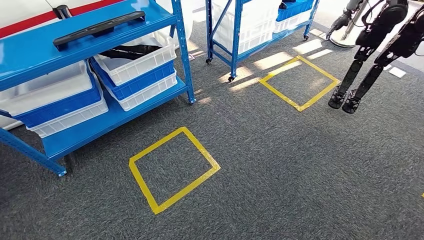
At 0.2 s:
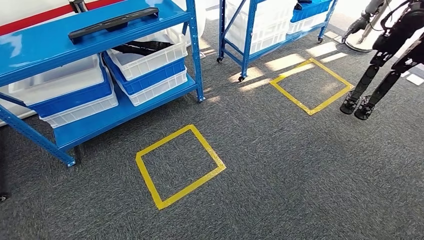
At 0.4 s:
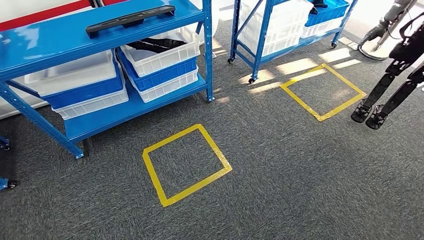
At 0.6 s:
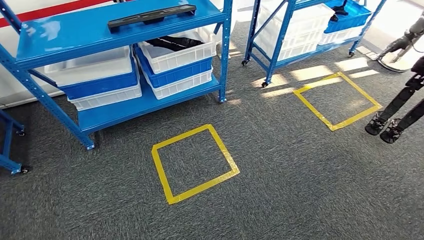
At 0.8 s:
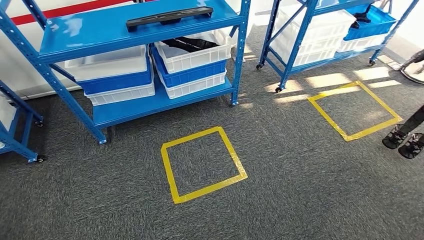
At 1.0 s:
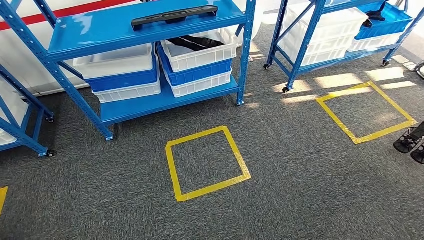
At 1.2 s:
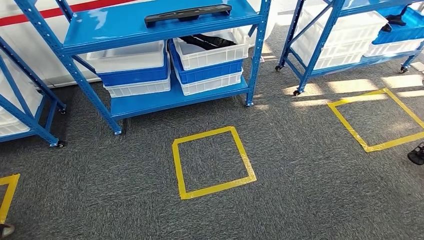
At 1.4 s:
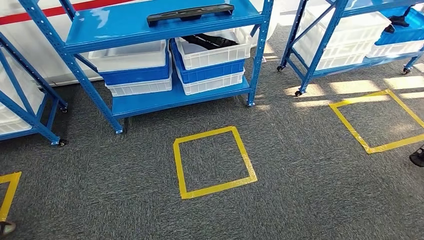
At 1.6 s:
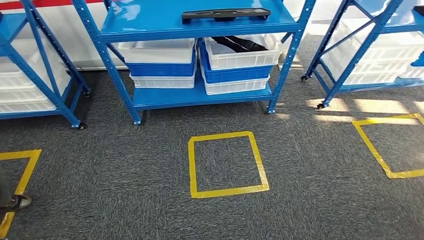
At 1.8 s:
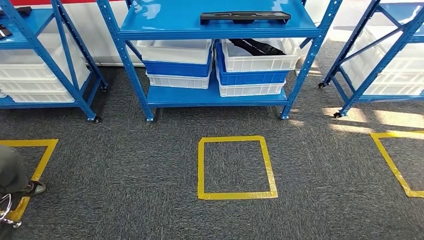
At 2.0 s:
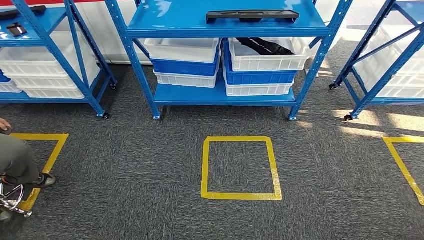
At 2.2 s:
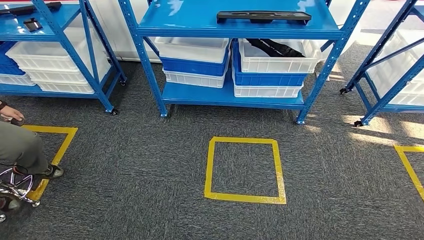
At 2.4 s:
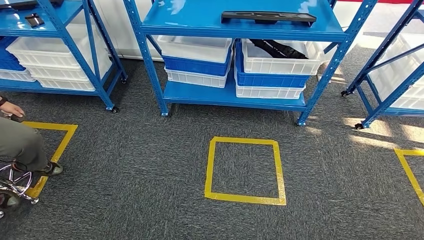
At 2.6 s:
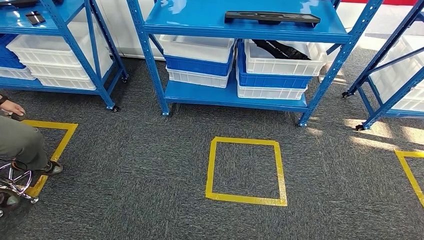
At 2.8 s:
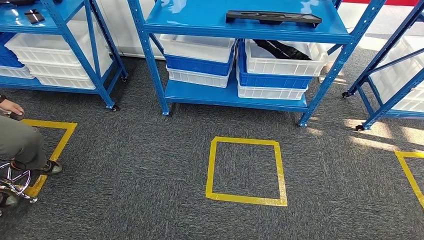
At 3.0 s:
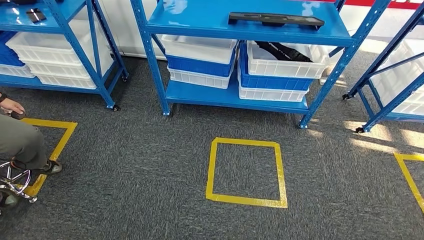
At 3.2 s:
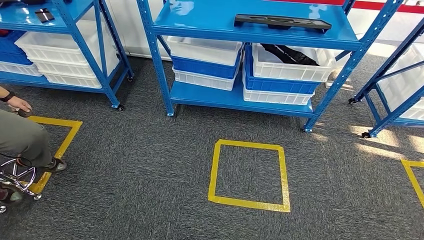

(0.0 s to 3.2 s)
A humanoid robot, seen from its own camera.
Step, 0.0 s - 3.2 s: Move to the initial position of the shelf.

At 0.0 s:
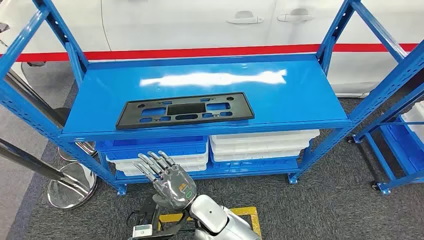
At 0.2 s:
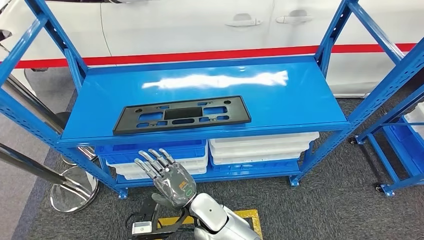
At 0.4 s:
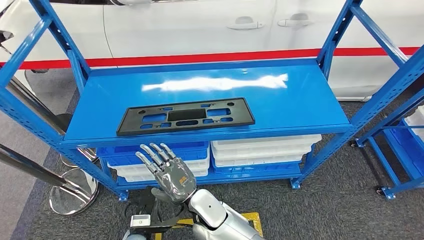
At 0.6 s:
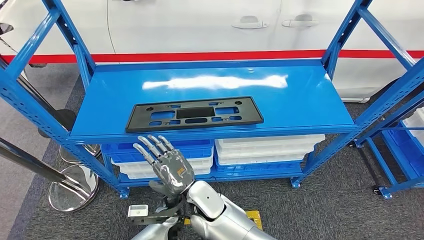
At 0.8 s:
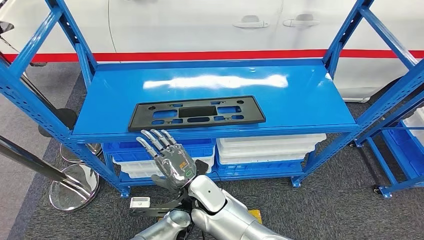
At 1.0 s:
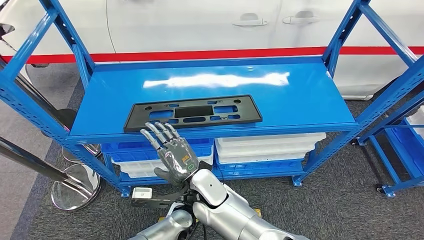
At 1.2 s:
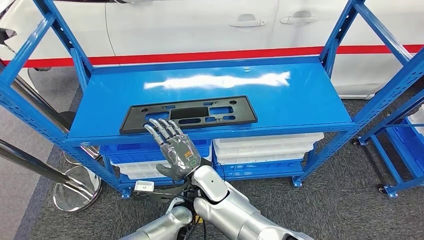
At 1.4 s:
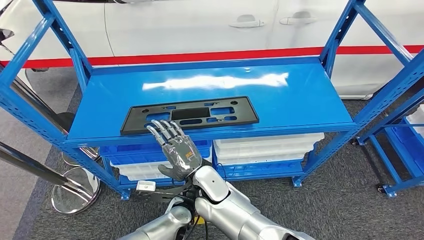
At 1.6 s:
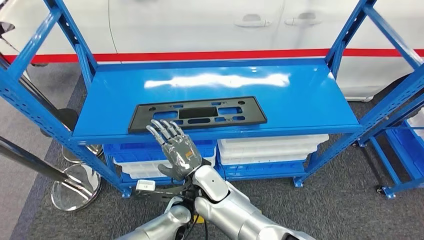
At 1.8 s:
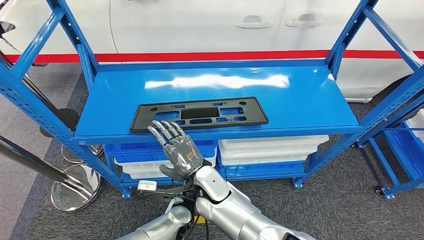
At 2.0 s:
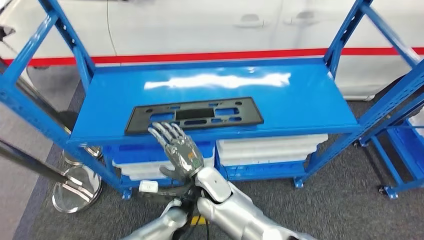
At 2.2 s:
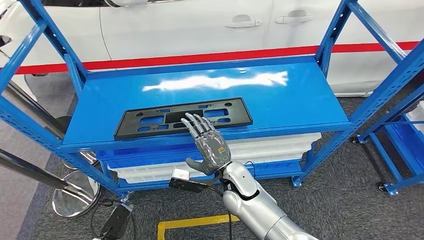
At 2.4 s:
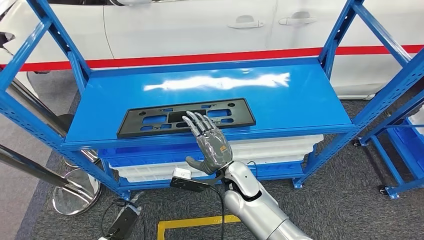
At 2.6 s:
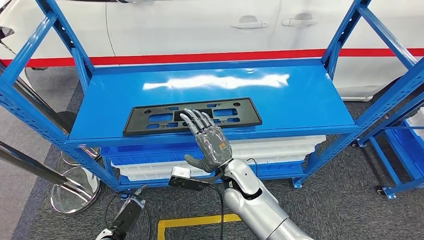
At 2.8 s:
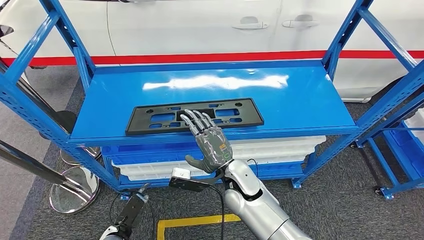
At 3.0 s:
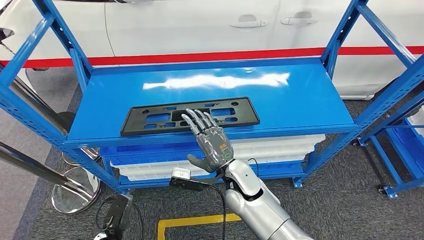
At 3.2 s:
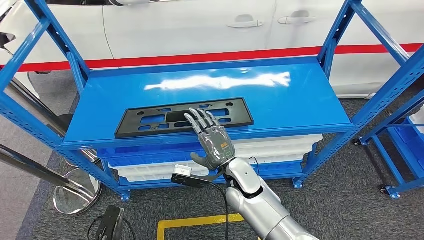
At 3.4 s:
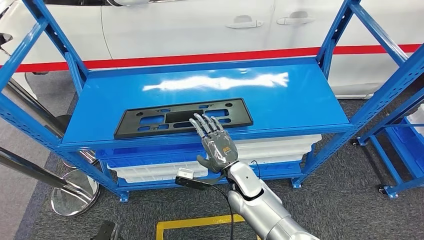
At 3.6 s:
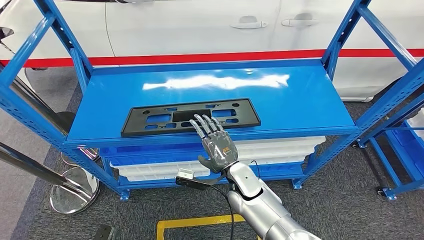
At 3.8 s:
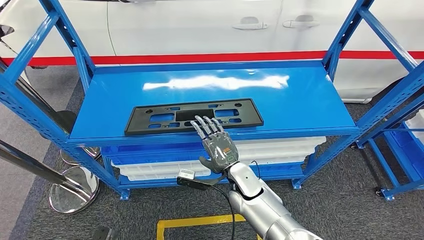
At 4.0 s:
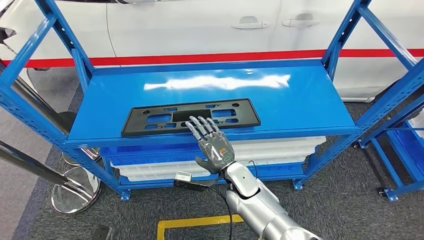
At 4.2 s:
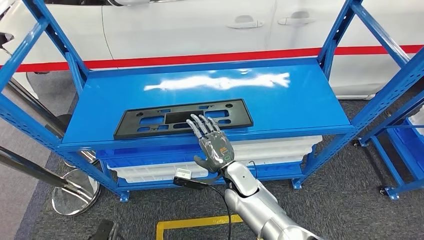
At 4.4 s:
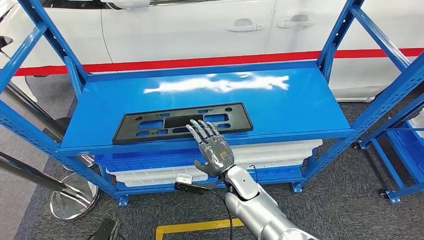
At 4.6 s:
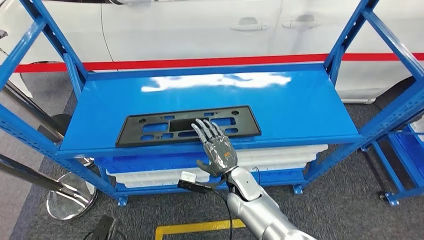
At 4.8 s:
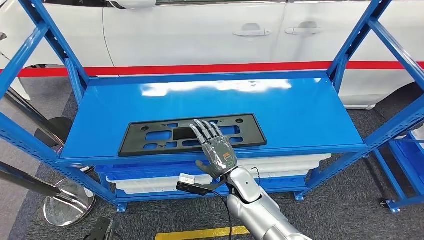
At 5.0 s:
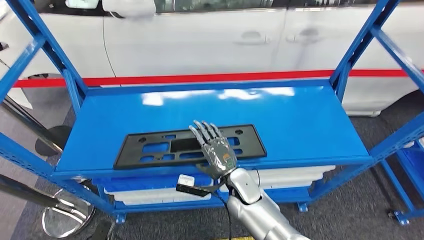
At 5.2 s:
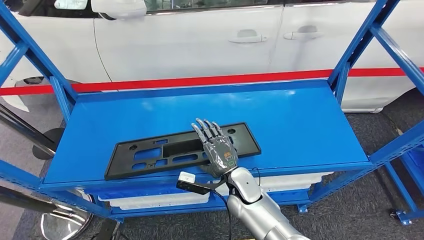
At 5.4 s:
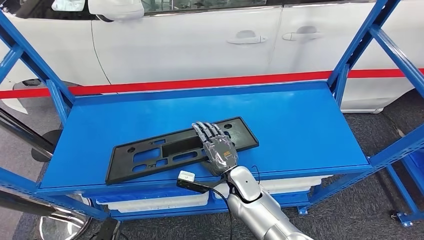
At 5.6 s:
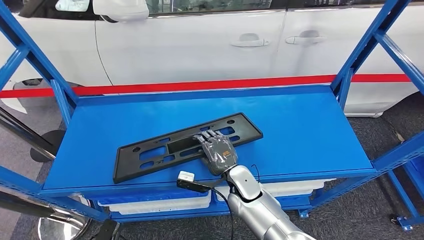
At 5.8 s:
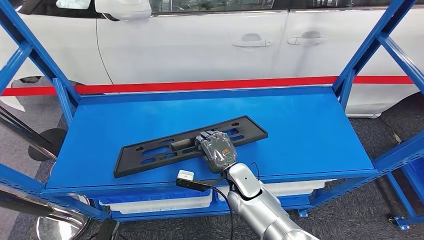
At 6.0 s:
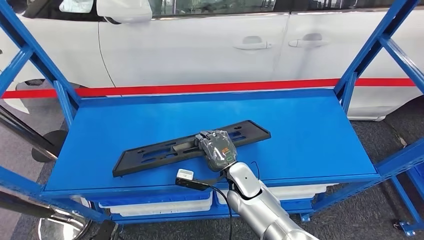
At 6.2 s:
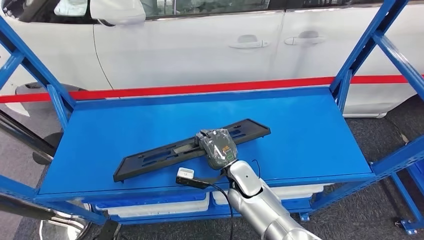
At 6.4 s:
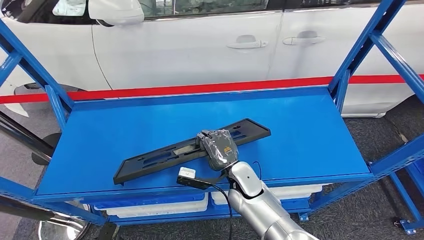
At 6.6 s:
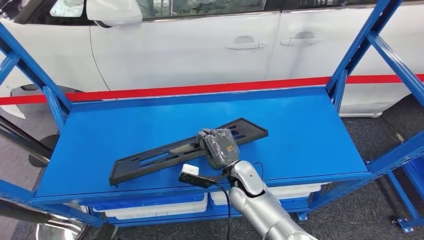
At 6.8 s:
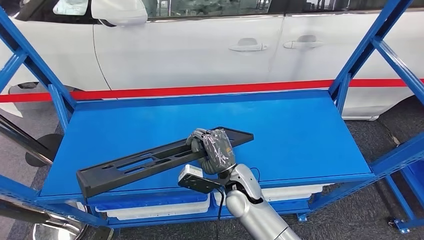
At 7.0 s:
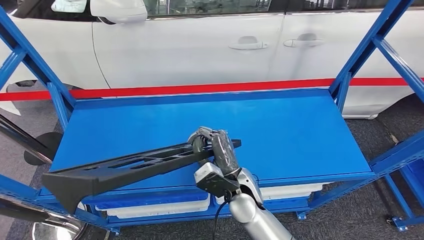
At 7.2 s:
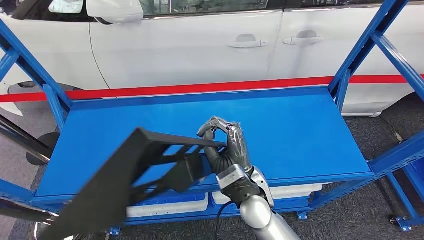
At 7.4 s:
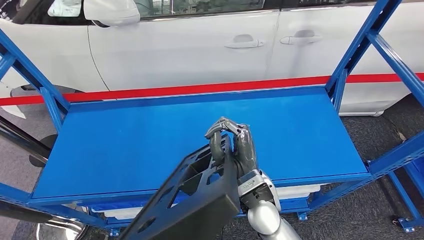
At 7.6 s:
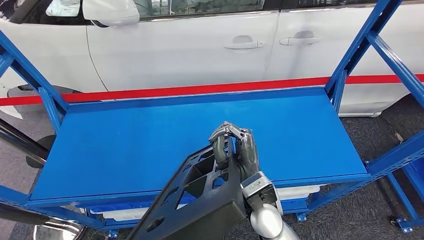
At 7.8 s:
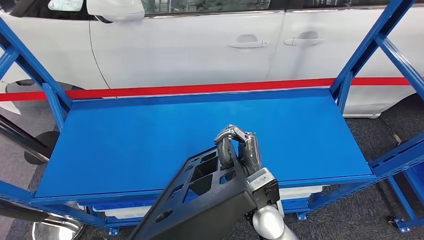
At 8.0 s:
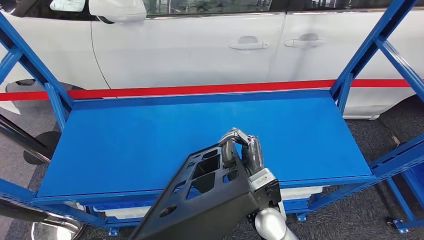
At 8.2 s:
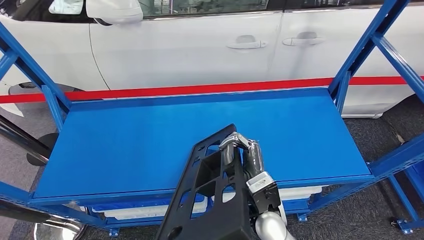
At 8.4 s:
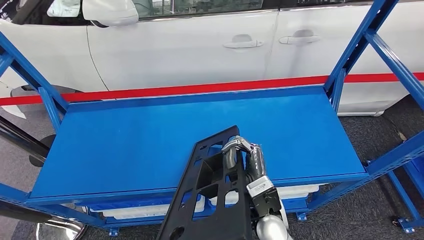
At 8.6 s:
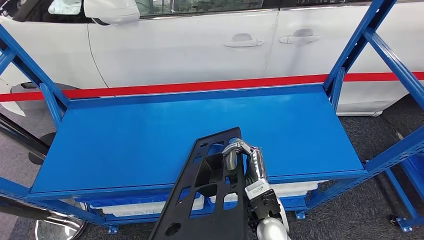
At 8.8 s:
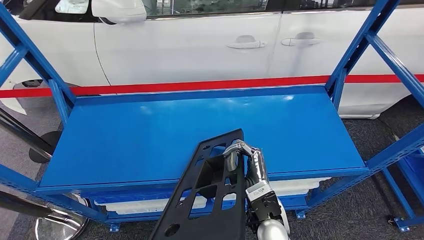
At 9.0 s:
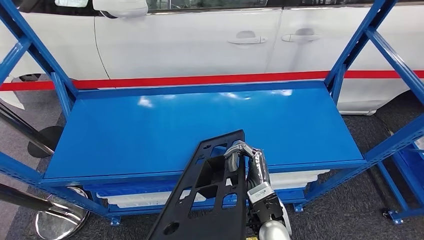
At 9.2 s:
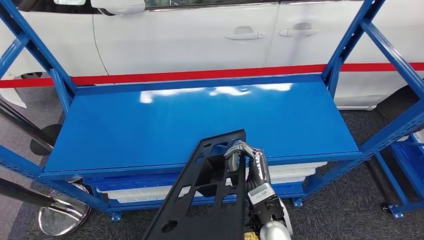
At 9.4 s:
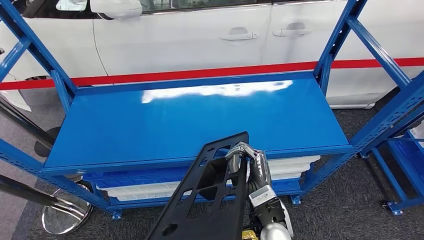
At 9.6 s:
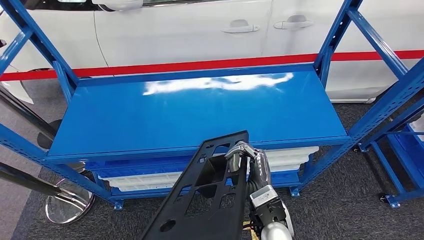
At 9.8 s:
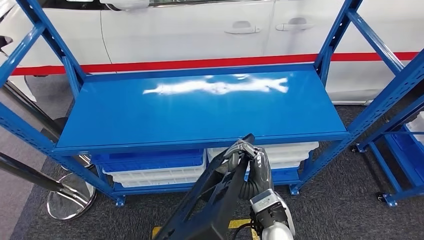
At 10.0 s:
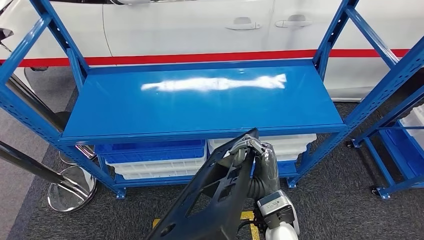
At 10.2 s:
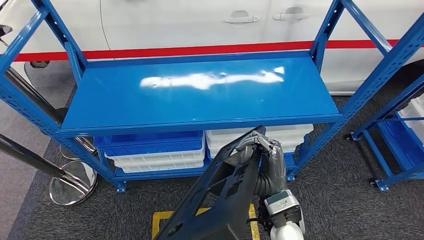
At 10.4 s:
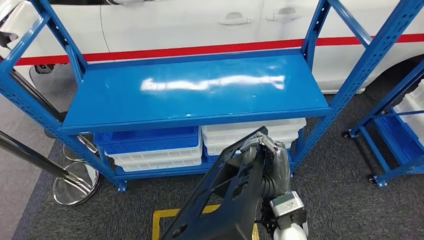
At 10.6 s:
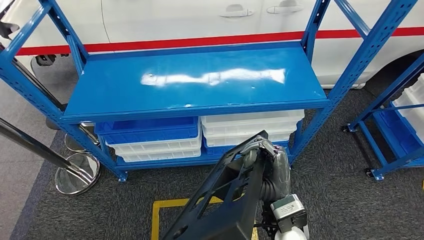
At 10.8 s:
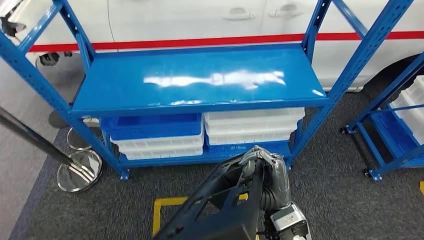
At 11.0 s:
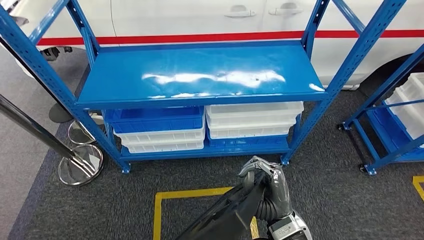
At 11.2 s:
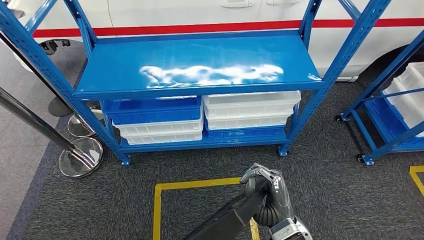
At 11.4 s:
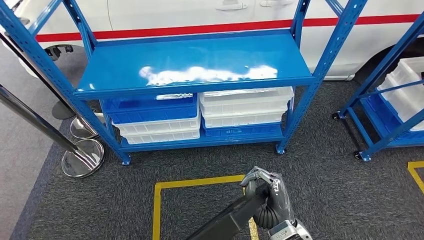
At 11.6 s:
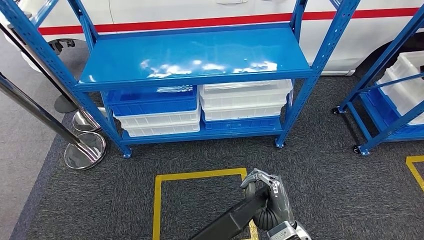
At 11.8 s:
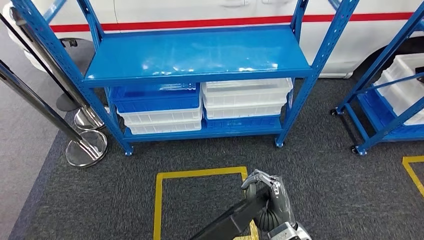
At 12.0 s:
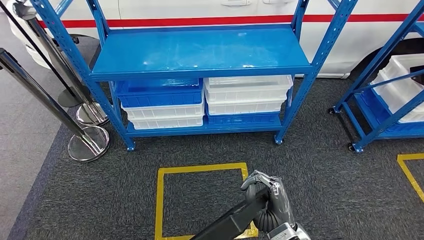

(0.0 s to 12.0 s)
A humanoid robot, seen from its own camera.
Step, 0.0 s - 10.6 s: Pick up the large material from the shelf.

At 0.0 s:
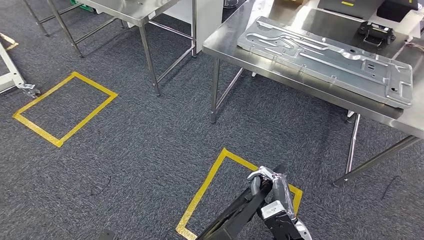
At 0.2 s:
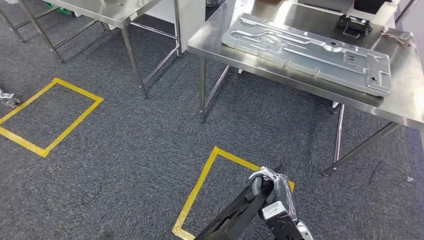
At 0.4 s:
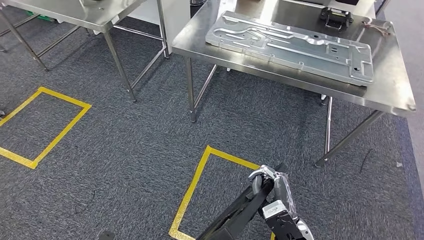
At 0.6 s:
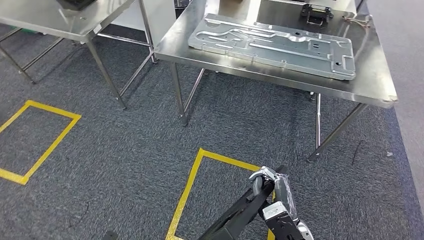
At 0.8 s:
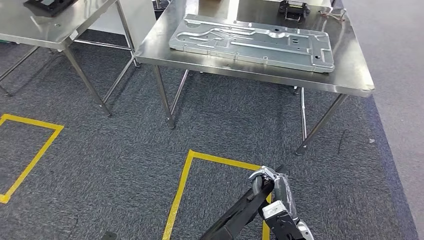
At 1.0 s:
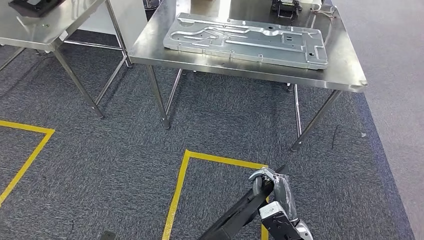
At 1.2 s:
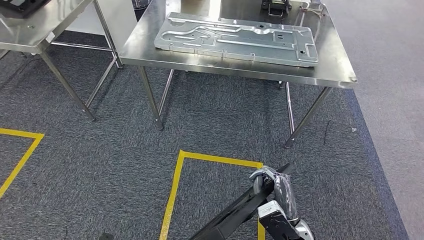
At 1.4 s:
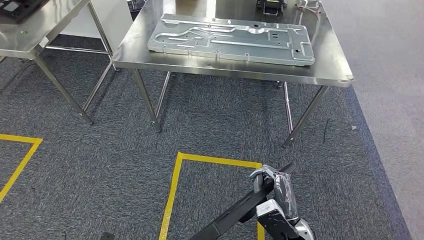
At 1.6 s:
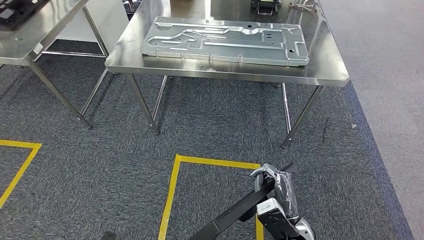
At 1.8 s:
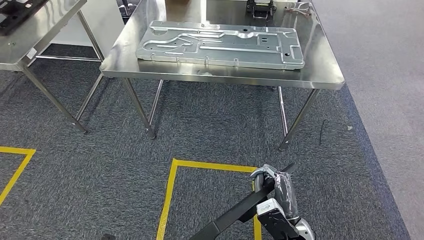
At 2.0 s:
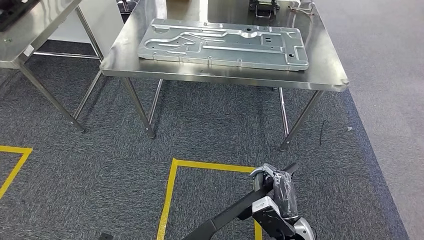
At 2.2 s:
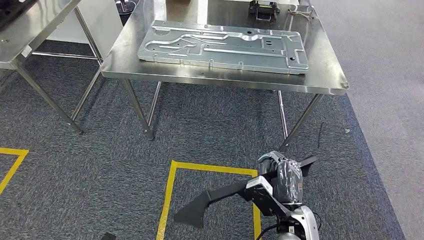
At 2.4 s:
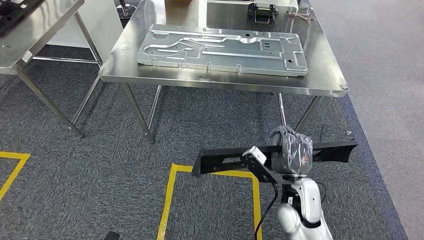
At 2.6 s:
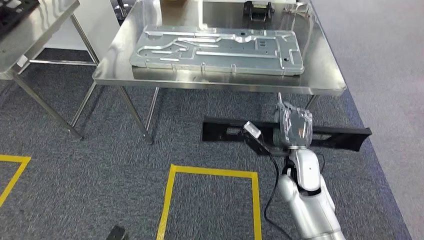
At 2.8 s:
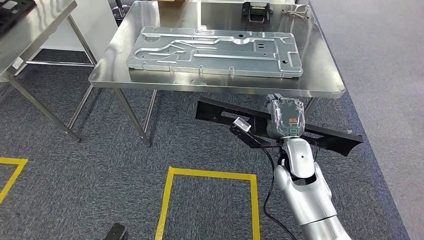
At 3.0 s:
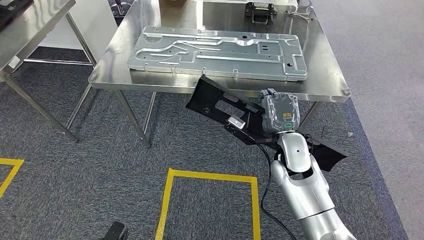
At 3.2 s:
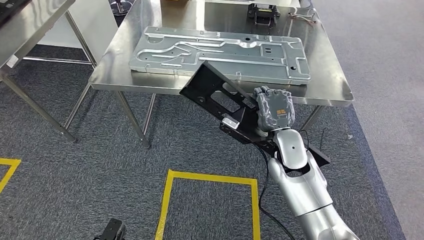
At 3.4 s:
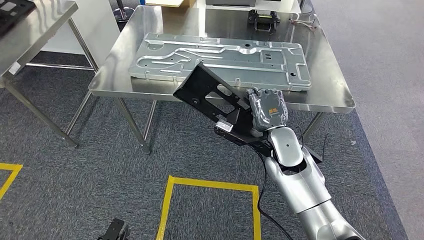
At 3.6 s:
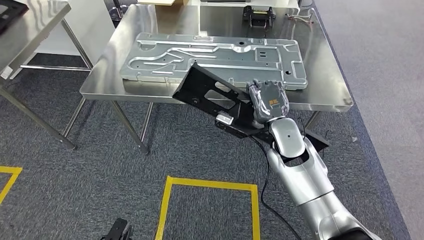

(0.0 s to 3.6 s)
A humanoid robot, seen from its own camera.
Step, 0.0 s - 2.4 s: Move the large material to the workbench.
